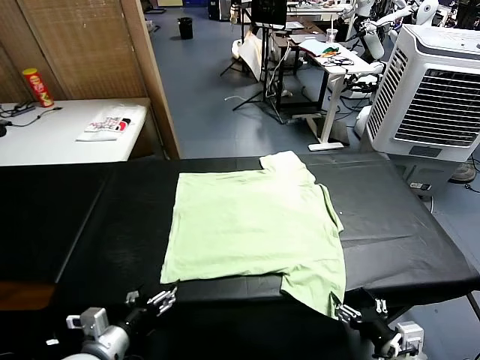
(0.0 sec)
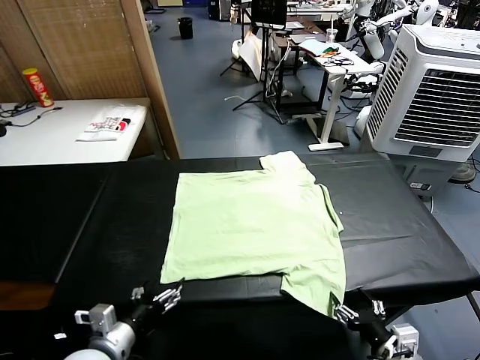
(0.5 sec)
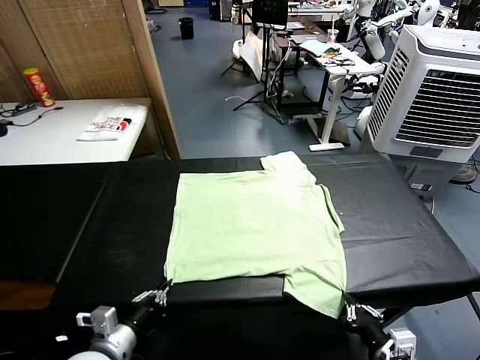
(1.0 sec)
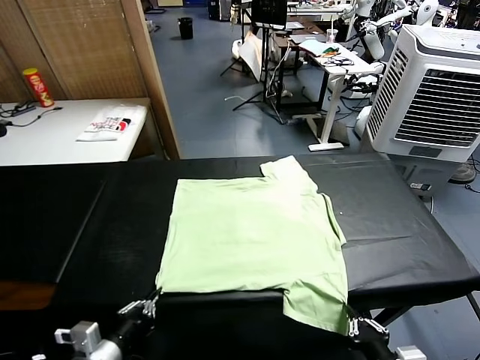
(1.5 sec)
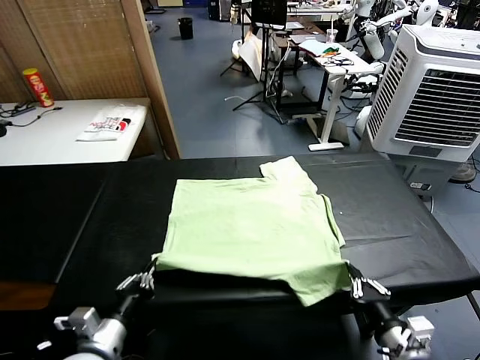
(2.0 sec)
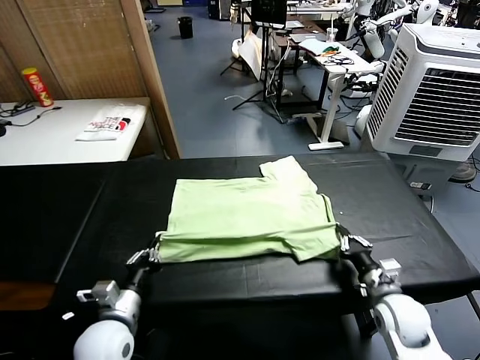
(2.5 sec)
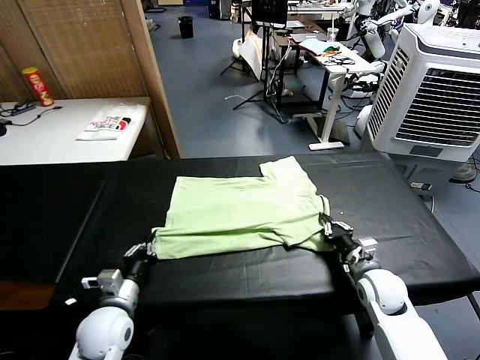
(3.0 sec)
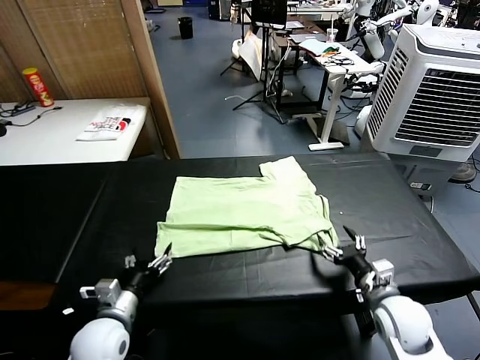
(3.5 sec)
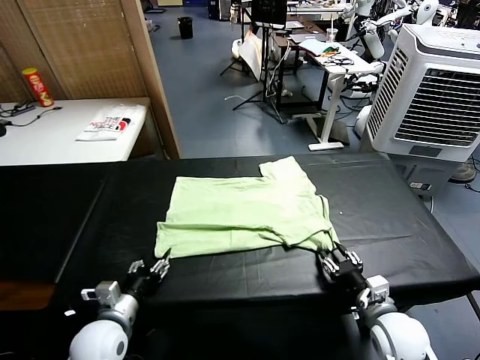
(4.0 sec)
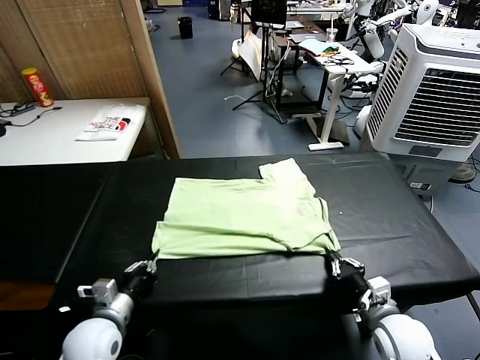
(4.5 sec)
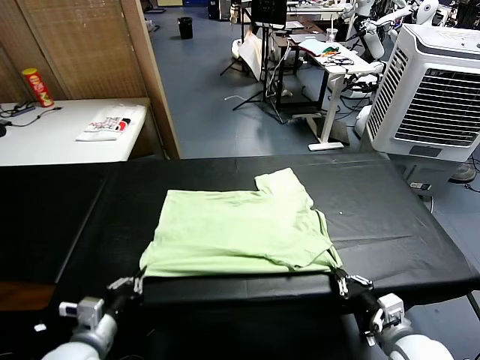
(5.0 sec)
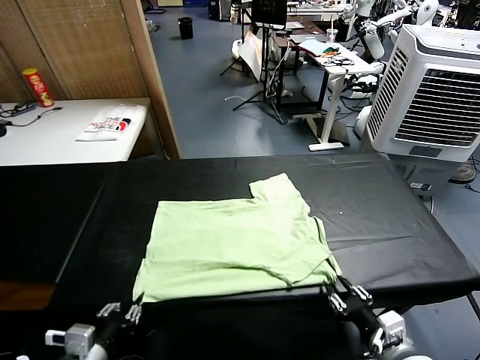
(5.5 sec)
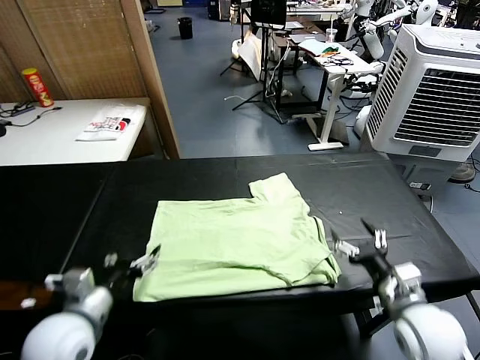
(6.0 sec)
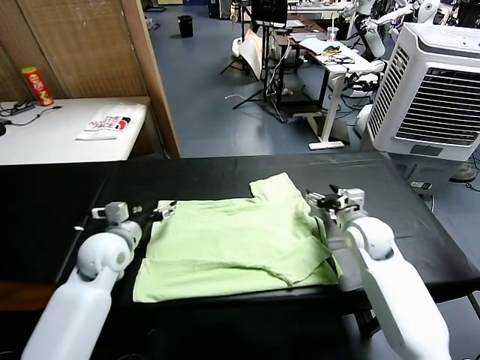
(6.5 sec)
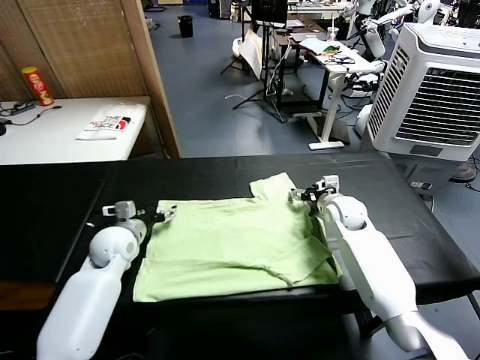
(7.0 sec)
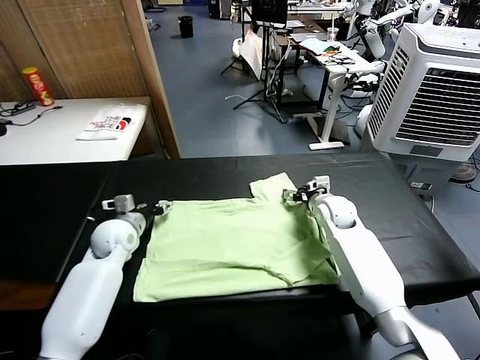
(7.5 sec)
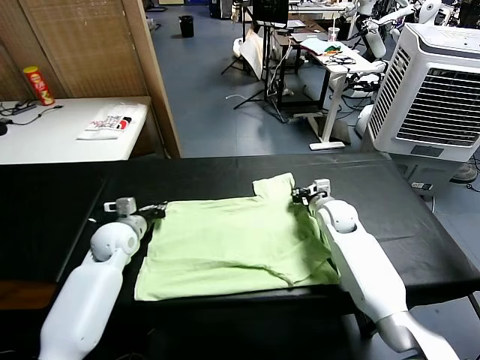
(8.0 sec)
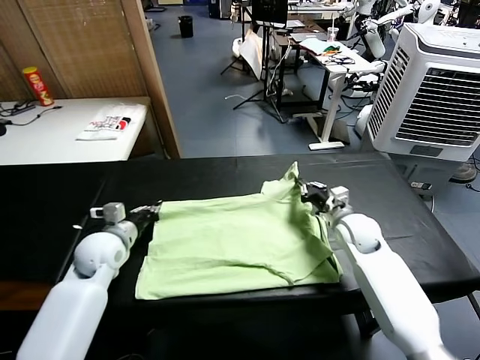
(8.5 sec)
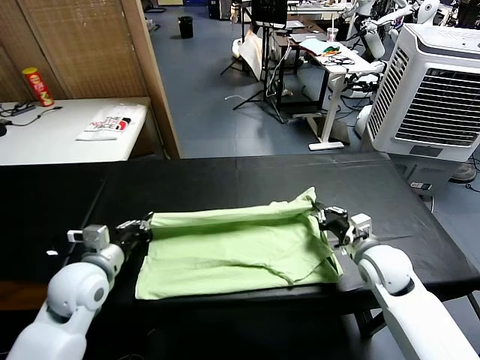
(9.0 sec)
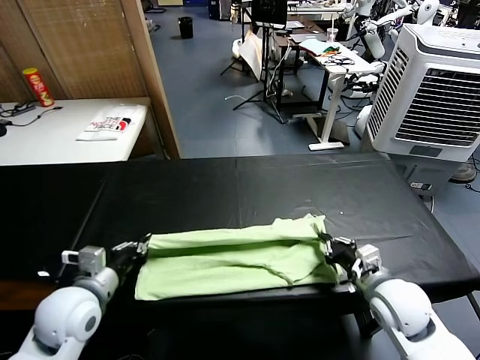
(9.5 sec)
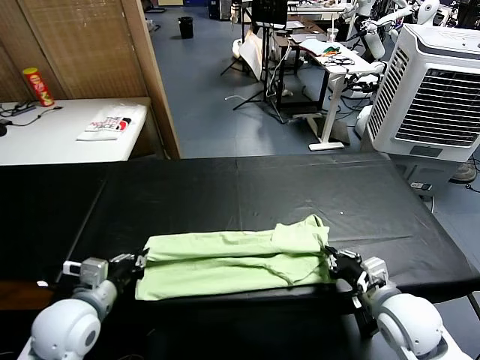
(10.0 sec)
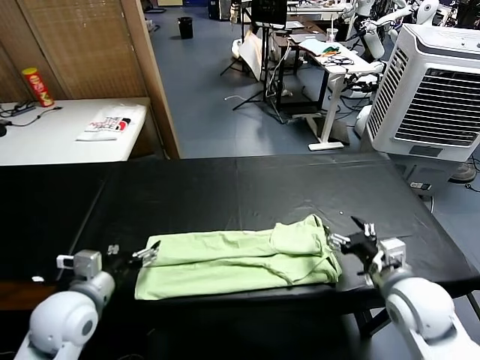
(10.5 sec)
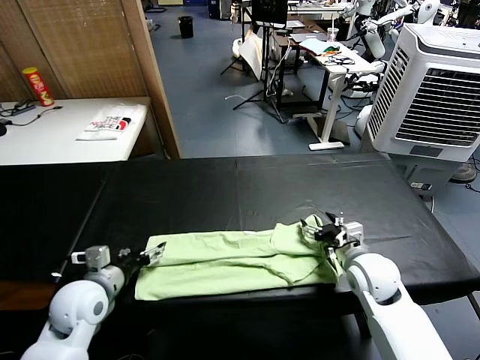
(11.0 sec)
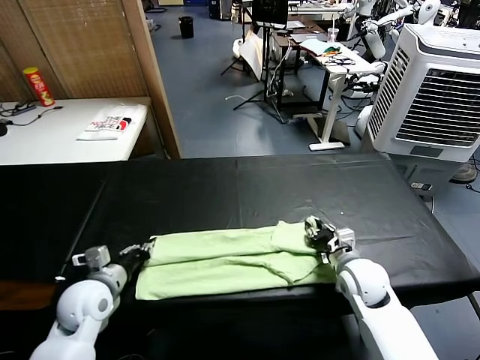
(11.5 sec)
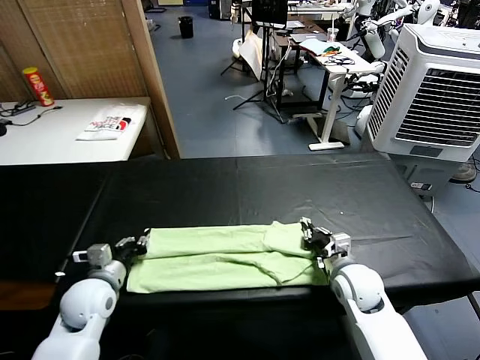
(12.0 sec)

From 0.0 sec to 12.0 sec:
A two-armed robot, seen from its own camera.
Task of the whole recording: fold and organize the clothes.
Step, from 0.0 sec to 1.0 sec: use both grippers simultaneously to clamp the lower edge of the clothing fabric.
Step, from 1.5 sec to 3.0 sec: use both grippers to drag the lower edge of the fabric forward and fold it over the upper edge.
Step, from 3.5 sec to 5.5 sec: Drag the clothes downward with both gripper.
Step, from 6.0 sec to 7.5 sec: use both grippers simultaneously to clamp the upper edge of the clothing fabric.
Step, from 8.0 sec to 10.0 sec: use both grippers to drag the upper edge of the fabric backward and fold it over the lower edge.
From 2.0 sec to 4.0 sec: The left gripper travels forward and downward by about 10 cm, and opens, while the right gripper is displaced forward by roughly 5 cm, and opens and closes again.
From 4.0 sec to 6.0 sec: The left gripper shifts approximately 10 cm upward, and opens; the right gripper travels upward and forward by roughly 10 cm, and opens its fingers.
From 6.0 sec to 8.0 sec: Both grippers move forward, approximately 20 cm. The left gripper closes. The right gripper closes.
From 8.0 sec to 10.0 sec: The grippers both shift backward by some 25 cm. The right gripper opens.
From 10.0 sec to 12.0 sec: The right gripper moves forward and downward, some 10 cm, and opens, then closes again. The left gripper heads downward and forward, covering approximately 10 cm, and opens and closes again.

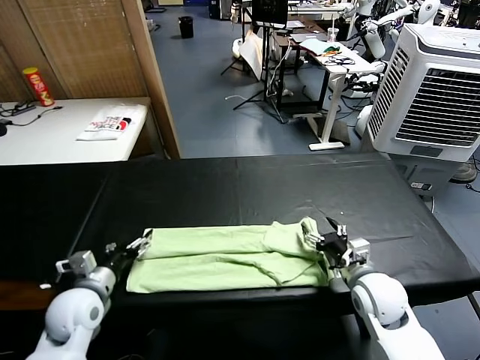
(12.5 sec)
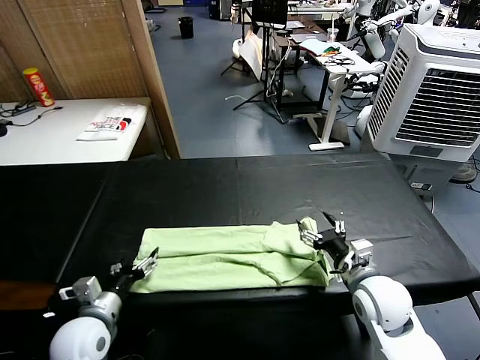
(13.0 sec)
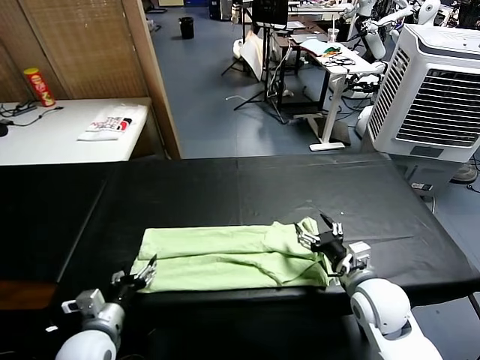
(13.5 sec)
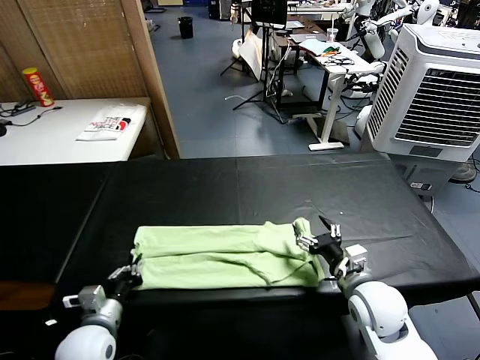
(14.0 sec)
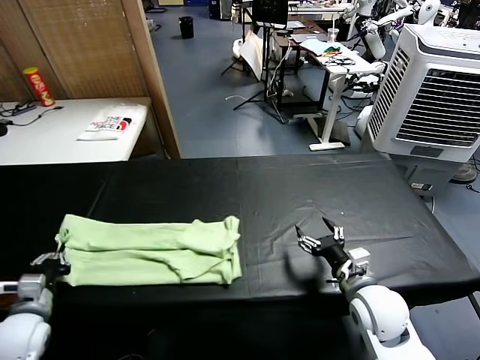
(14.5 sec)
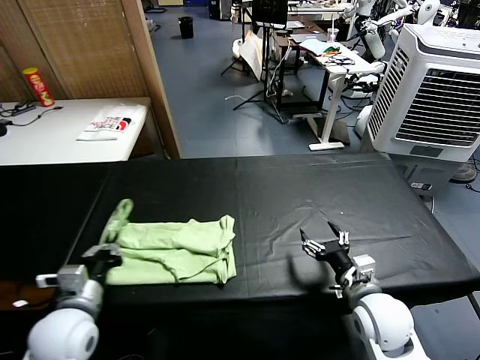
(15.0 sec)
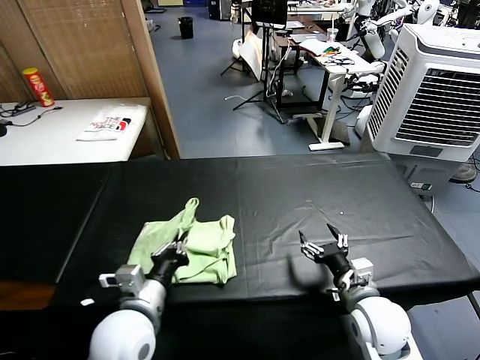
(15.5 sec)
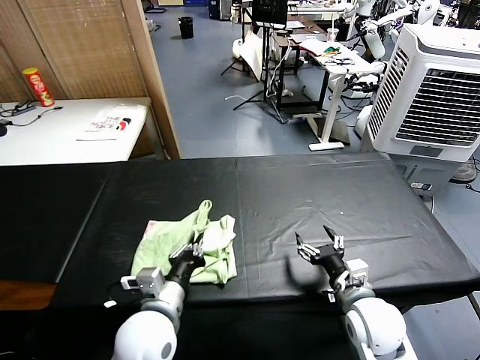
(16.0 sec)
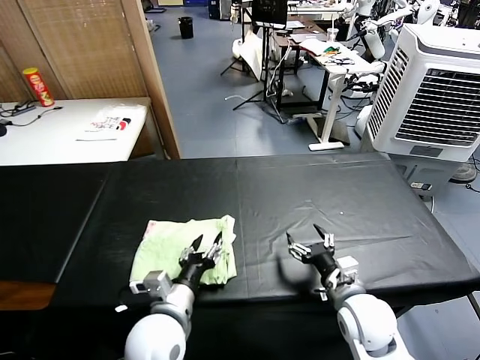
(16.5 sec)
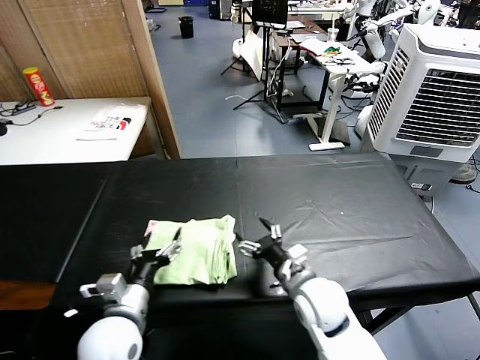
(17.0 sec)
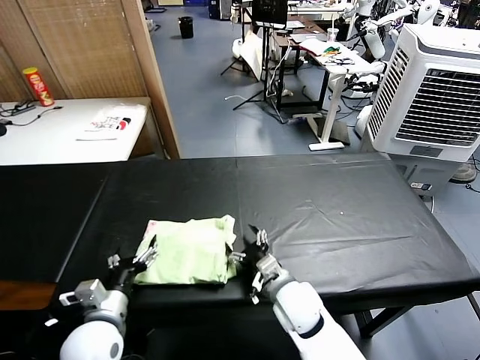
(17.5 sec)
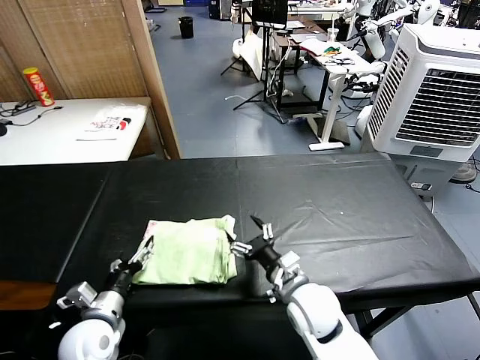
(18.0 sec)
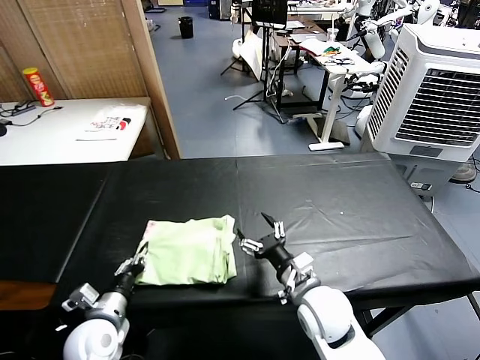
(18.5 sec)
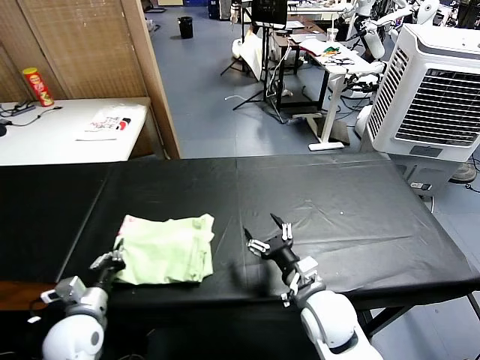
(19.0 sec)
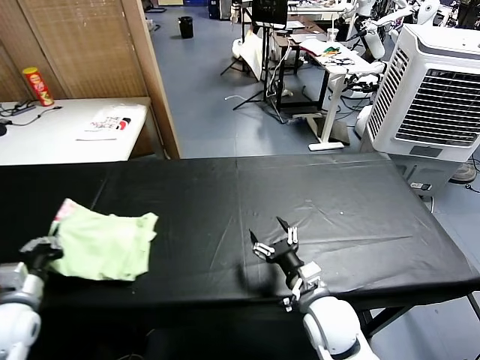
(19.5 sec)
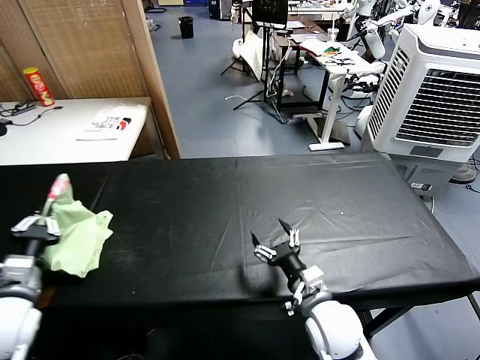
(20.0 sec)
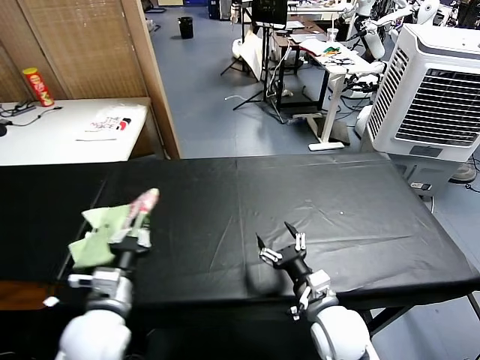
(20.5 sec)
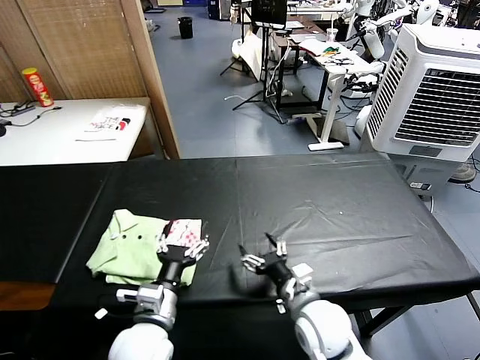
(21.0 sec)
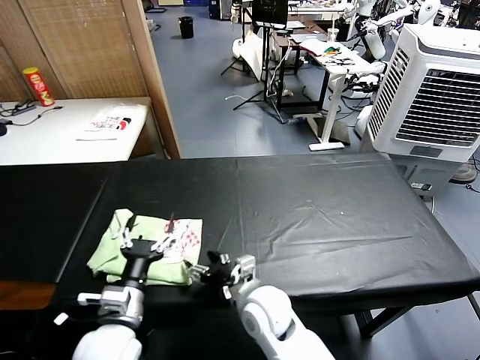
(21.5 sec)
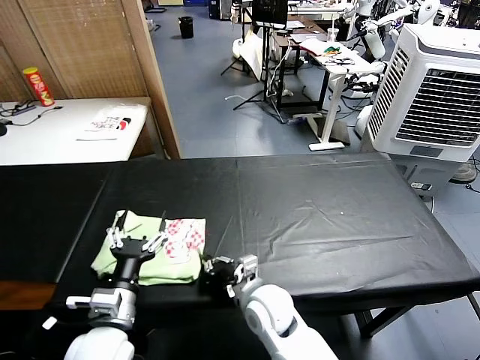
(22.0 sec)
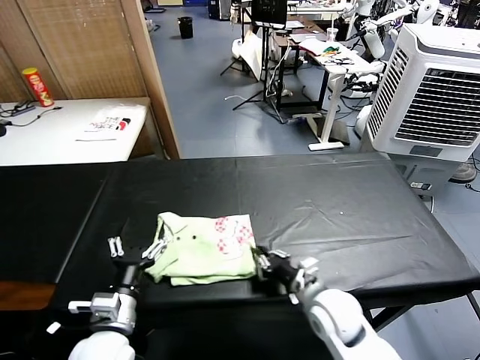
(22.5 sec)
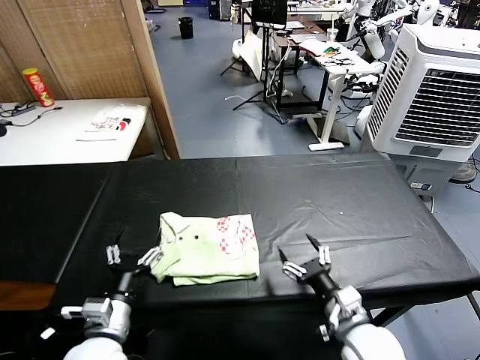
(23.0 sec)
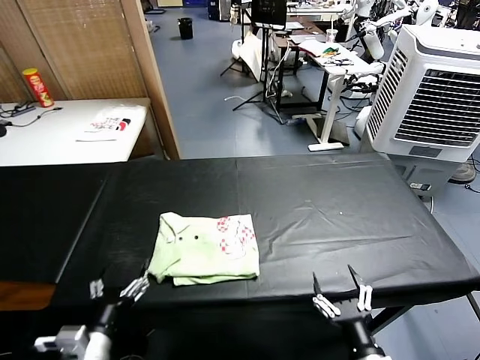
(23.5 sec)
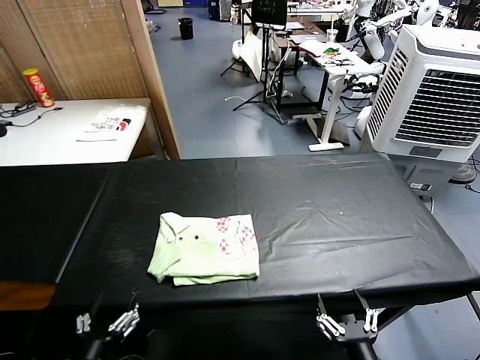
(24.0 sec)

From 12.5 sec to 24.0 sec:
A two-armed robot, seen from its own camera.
Task of the whole recording: fold and organize the clothes.
Step, from 14.0 sec to 16.5 sec: use the left gripper to drag the left edge of the fabric to the left and folds it over the right edge.
Step, from 17.0 sec to 20.5 sec: Flip the folded clothes over with left gripper.
Step, from 21.0 sec to 22.5 sec: Drag the clothes to the center of the table.
From 12.5 sec to 14.5 sec: The left gripper travels to the left by roughly 10 cm, and closes.
From 14.5 sec to 16.5 sec: The left gripper moves to the right, approximately 30 cm, and opens.
From 16.5 sec to 18.5 sec: The left gripper moves to the left and downward, about 20 cm, and opens and closes again. The right gripper heads to the left, covering some 10 cm.
From 18.5 sec to 20.0 sec: The left gripper travels upward and to the left by some 15 cm.
From 20.0 sec to 22.0 sec: The left gripper shifts approximately 20 cm to the right, and opens its fingers; the right gripper travels to the left by some 10 cm, and closes up.
From 22.0 sec to 24.0 sec: The left gripper shifts roughly 10 cm backward. The right gripper heads backward and to the right, covering about 30 cm, and opens up.

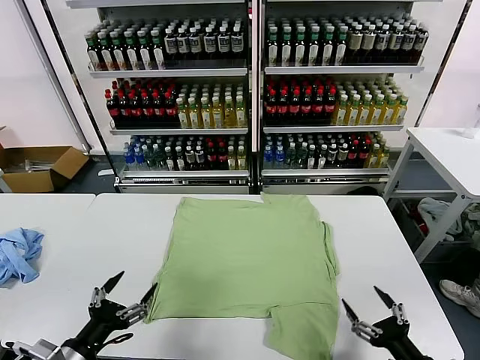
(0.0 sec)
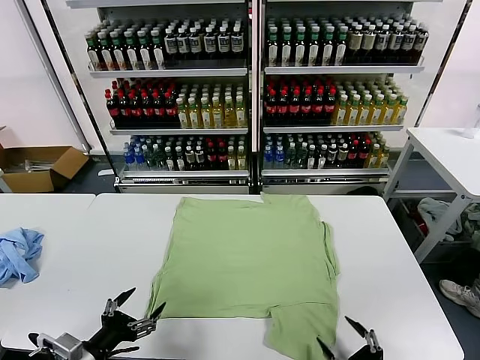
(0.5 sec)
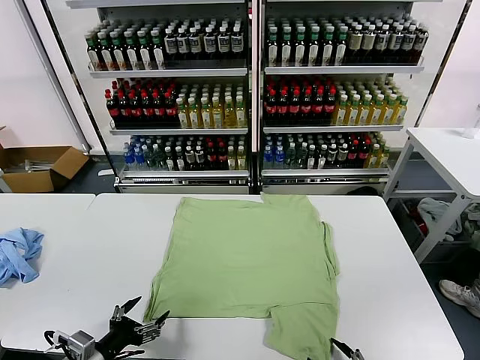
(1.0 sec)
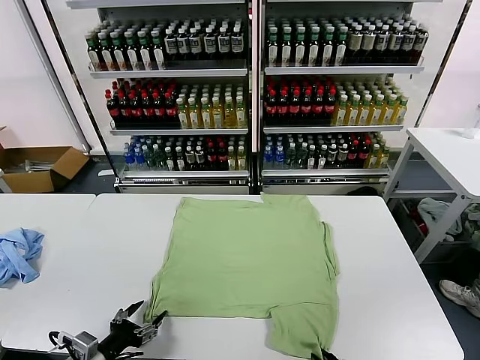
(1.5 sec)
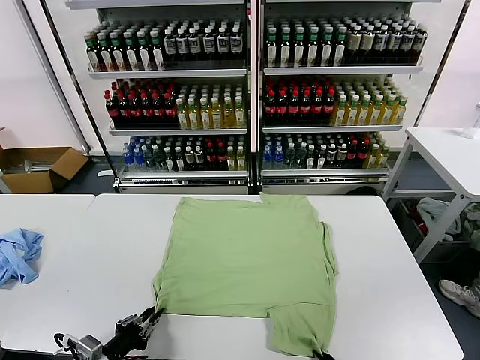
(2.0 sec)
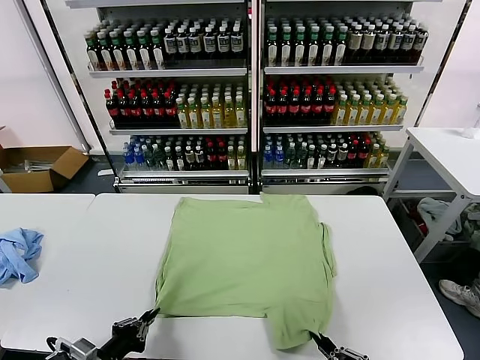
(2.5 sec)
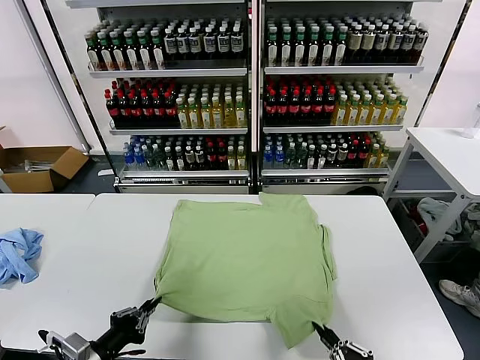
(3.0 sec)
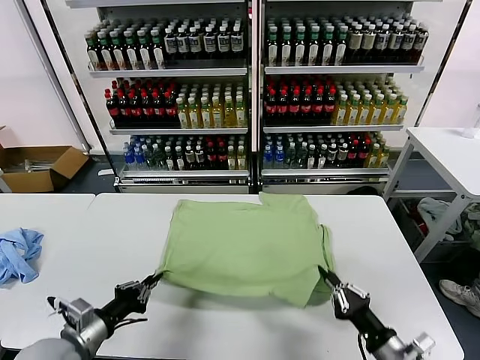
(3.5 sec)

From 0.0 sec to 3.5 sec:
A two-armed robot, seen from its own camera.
Task of the whole recording: fold and organize the clothes.
Step, from 0.0 sec to 2.0 sec: use both grippers simultaneously to clamp the lower edge of the clothing fabric.
From 2.0 sec to 3.5 sec: The left gripper is displaced forward and upward by roughly 10 cm. Meanwhile the right gripper travels forward by about 15 cm.
